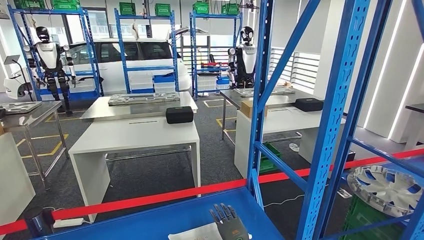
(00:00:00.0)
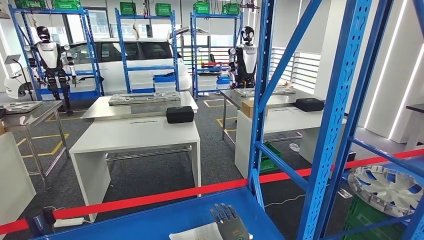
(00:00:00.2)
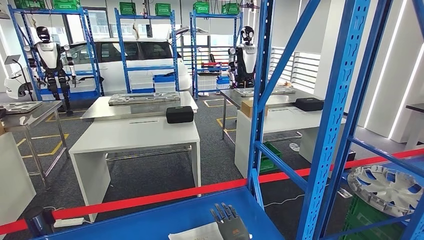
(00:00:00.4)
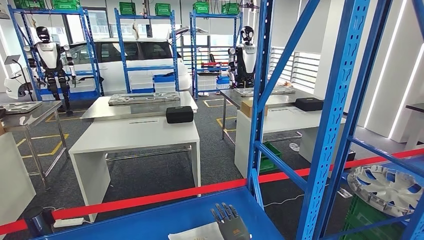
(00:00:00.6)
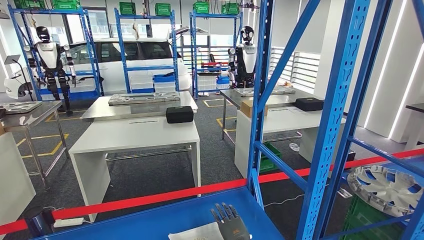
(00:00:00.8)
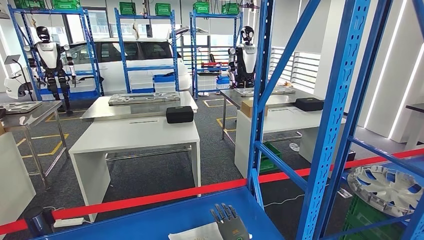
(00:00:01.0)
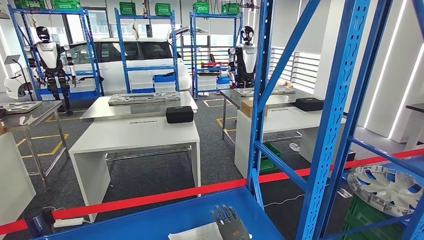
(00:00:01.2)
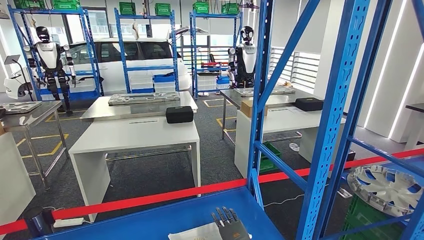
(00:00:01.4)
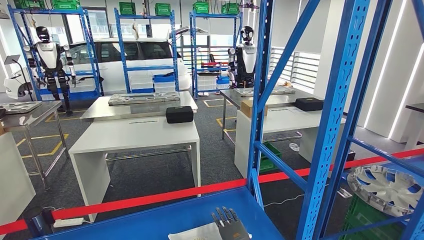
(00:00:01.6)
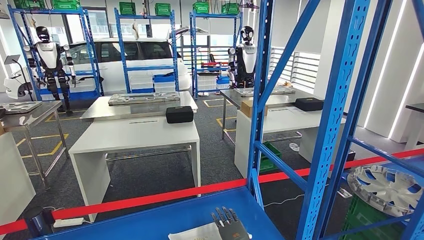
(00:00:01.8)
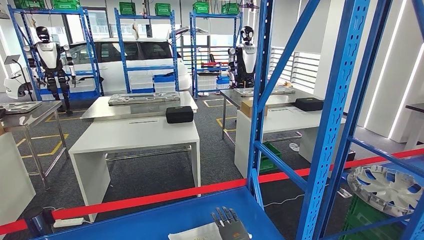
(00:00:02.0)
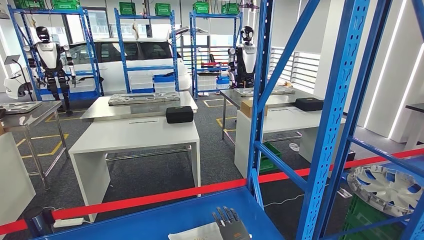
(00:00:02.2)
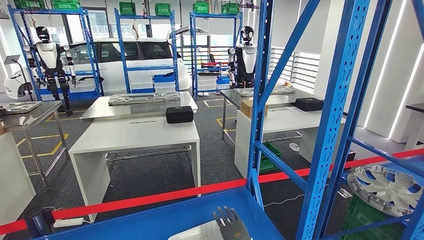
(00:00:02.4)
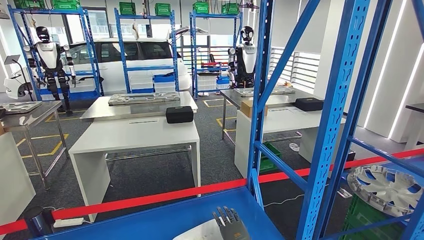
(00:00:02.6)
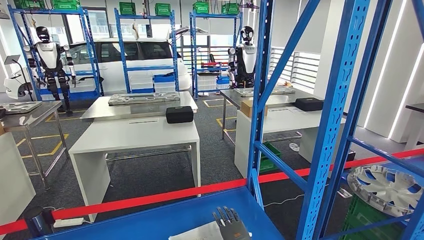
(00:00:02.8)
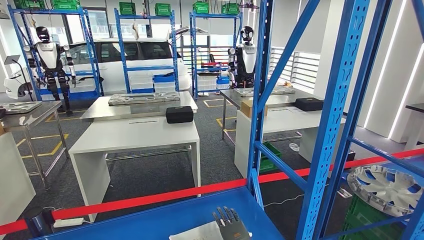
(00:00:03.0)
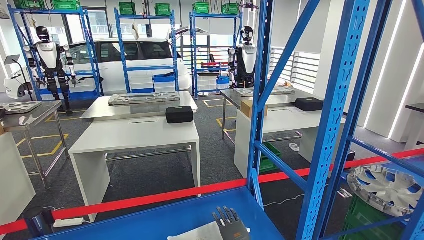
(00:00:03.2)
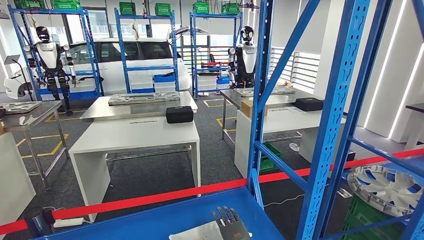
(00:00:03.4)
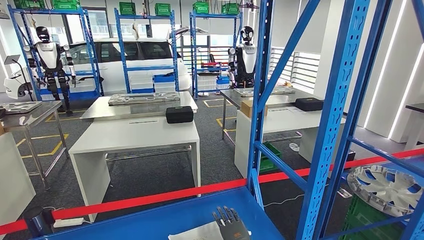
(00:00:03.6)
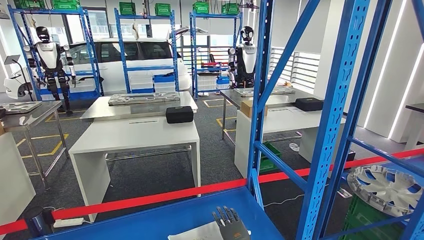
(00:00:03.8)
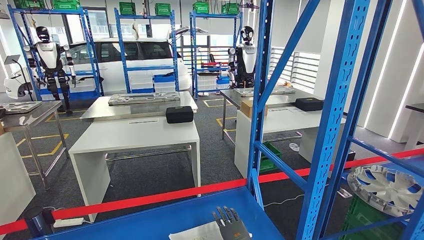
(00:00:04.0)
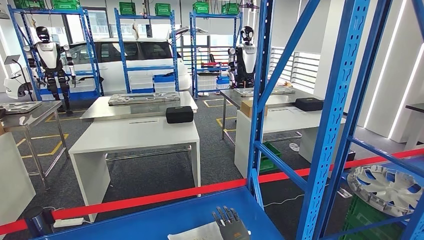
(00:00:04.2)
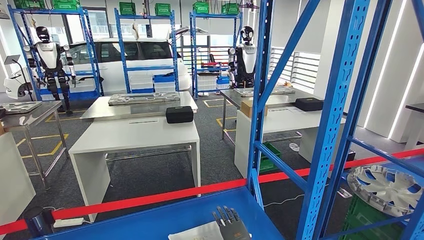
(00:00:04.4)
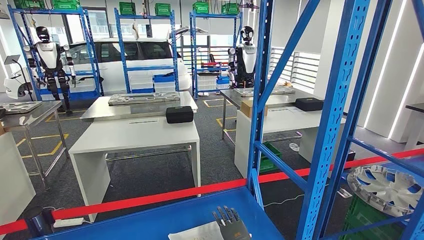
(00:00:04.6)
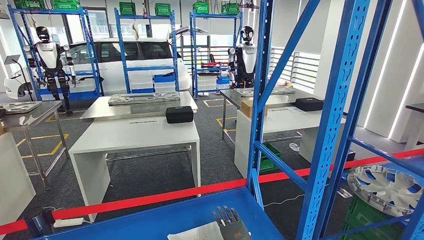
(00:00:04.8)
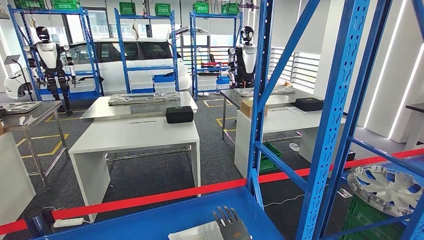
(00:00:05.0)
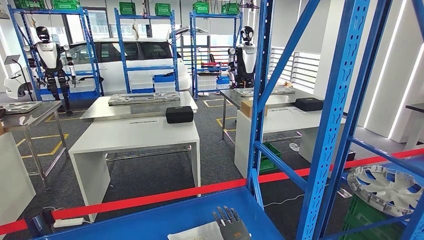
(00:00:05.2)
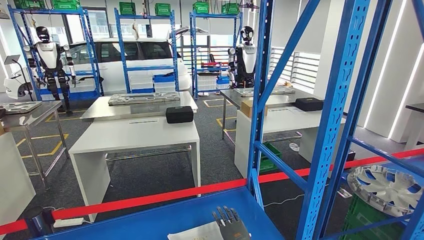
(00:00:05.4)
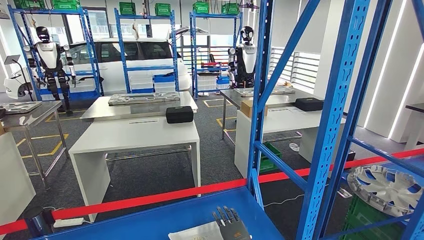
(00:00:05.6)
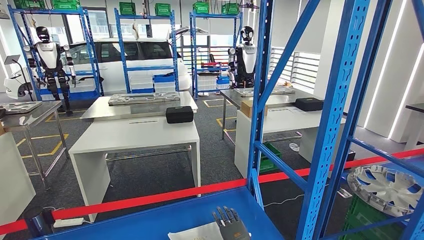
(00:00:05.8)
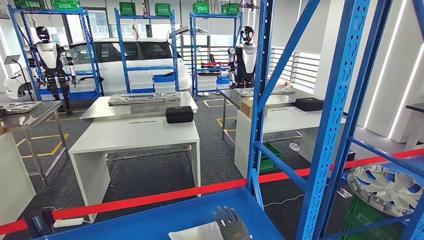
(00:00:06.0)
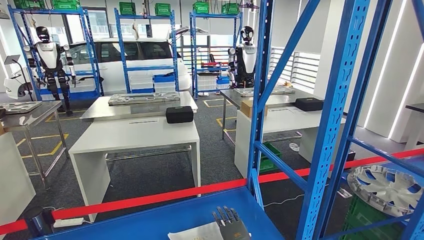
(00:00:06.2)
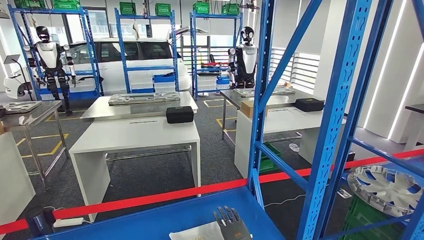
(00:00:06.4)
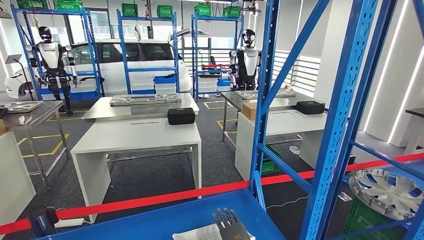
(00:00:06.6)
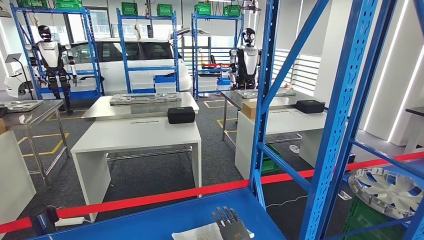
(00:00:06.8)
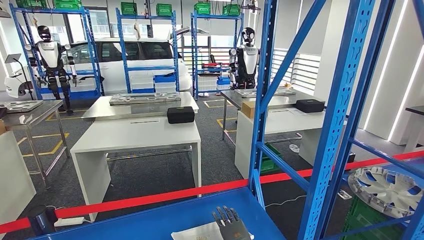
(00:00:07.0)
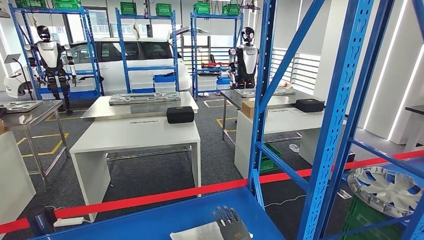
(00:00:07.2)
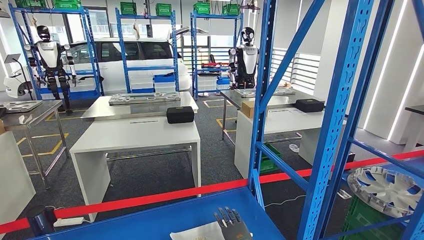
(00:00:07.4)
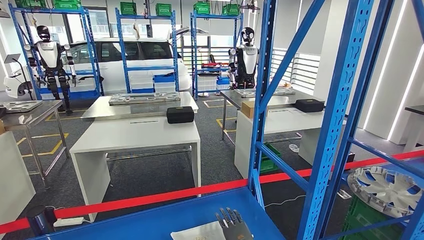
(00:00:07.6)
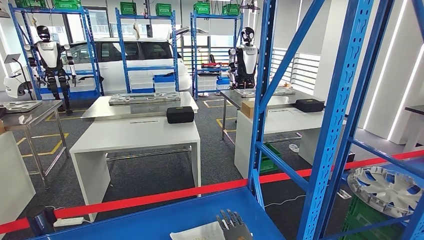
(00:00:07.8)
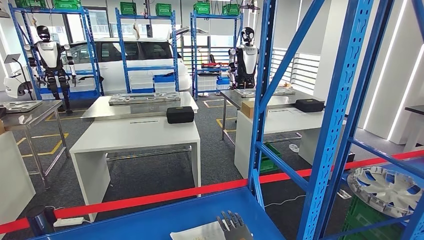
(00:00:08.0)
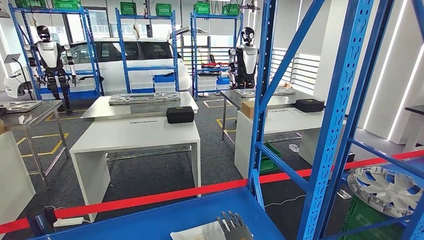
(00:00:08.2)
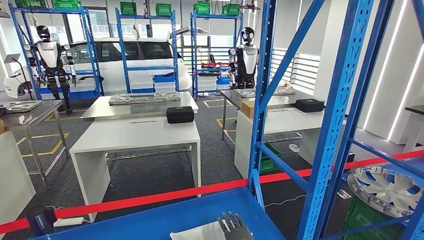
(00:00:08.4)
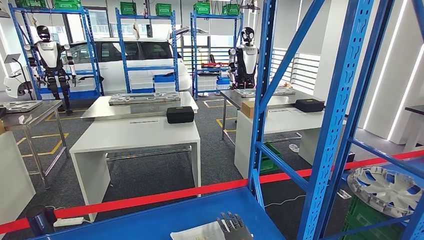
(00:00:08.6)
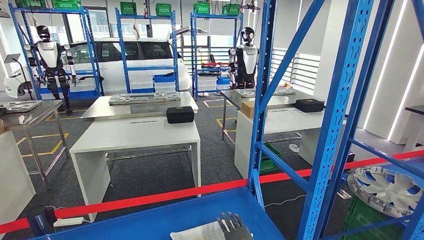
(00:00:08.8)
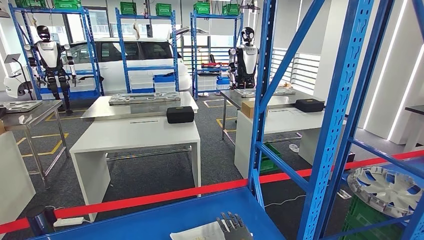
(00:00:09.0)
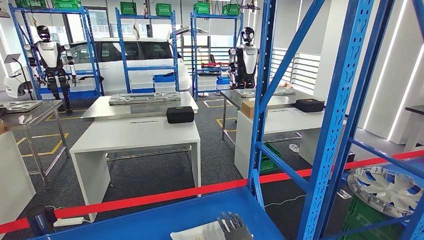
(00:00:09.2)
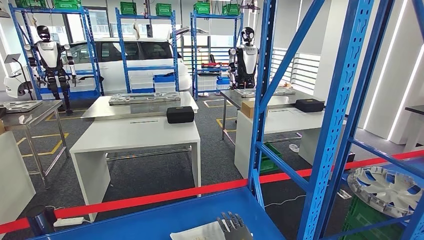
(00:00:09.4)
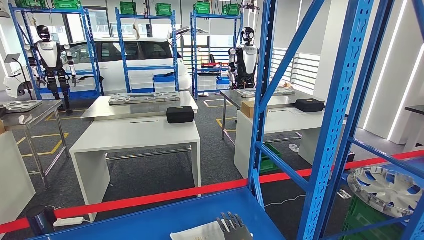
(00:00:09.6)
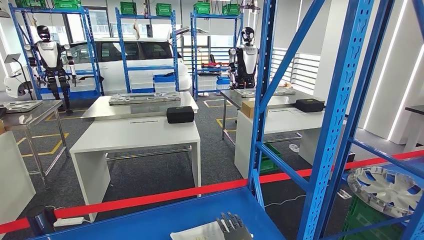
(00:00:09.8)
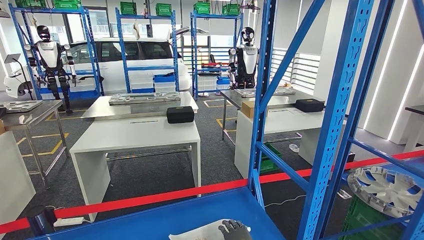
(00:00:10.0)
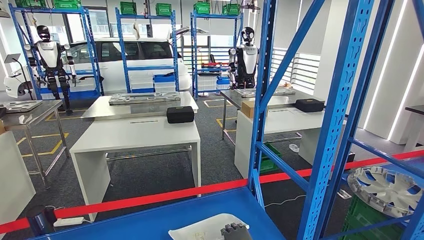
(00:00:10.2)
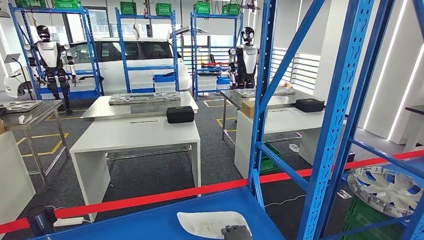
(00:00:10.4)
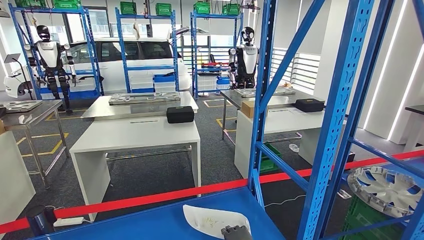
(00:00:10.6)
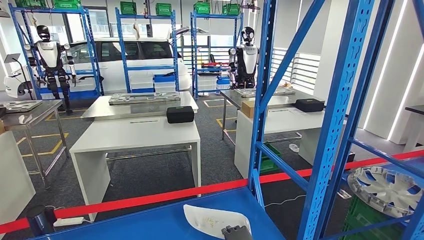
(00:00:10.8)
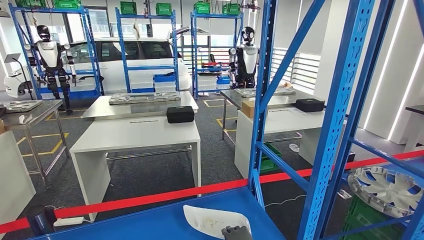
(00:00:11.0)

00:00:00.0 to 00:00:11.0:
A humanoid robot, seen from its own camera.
Step, 00:00:00.0 to 00:00:11.0: Pick up the small component from the shelf.
00:00:00.0 to 00:00:06.2: Both hands stay put.
00:00:06.2 to 00:00:07.8: The hands move only a little.
00:00:07.8 to 00:00:09.4: The two hands keep their place.
00:00:09.4 to 00:00:11.0: The hands move only a little.
